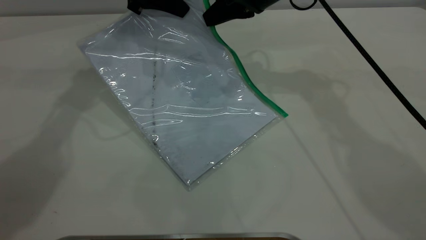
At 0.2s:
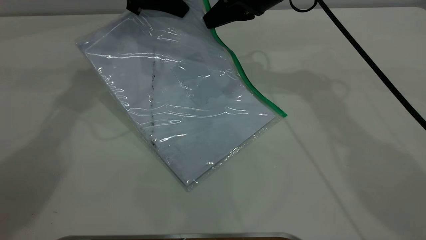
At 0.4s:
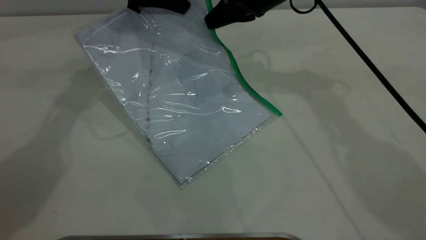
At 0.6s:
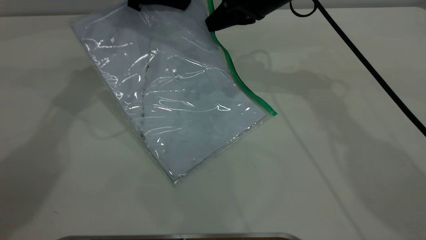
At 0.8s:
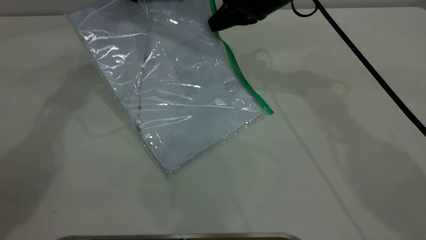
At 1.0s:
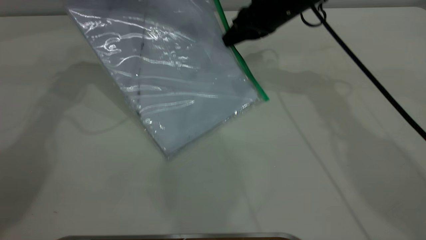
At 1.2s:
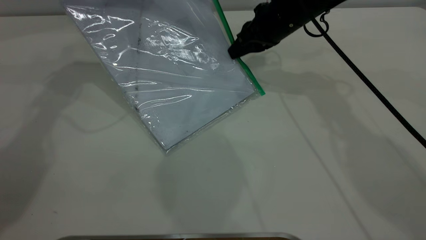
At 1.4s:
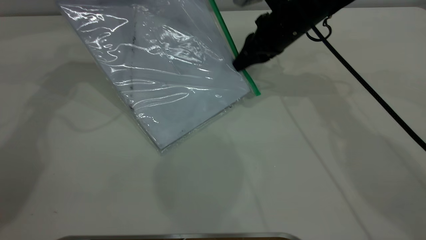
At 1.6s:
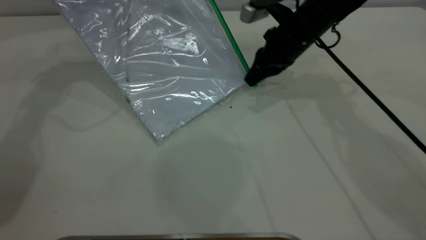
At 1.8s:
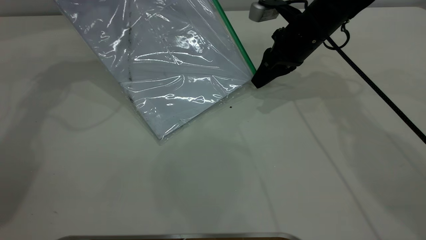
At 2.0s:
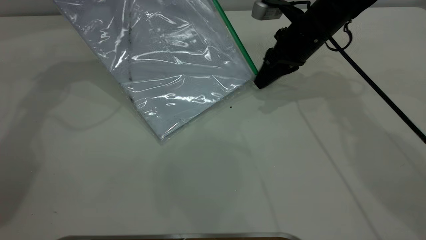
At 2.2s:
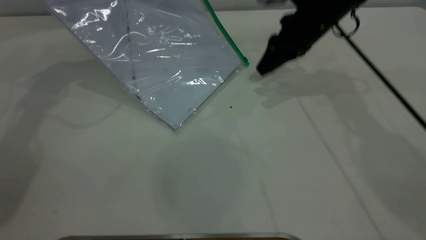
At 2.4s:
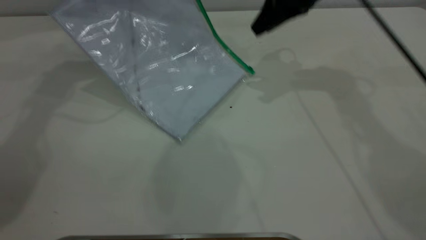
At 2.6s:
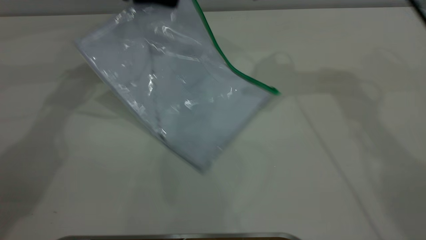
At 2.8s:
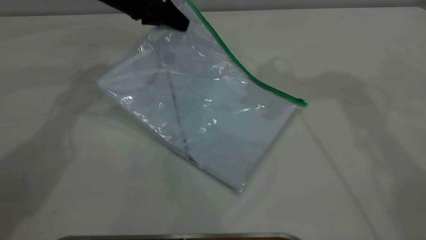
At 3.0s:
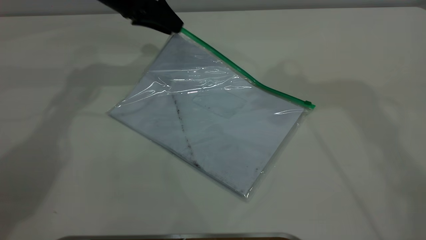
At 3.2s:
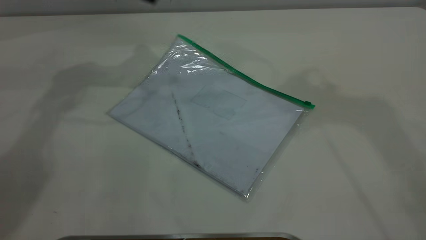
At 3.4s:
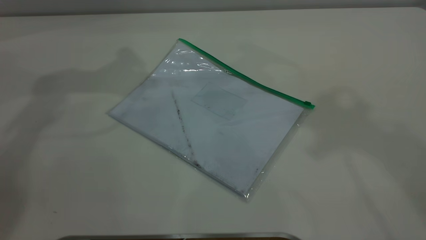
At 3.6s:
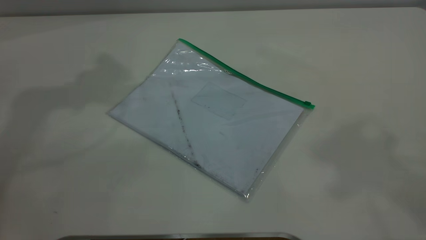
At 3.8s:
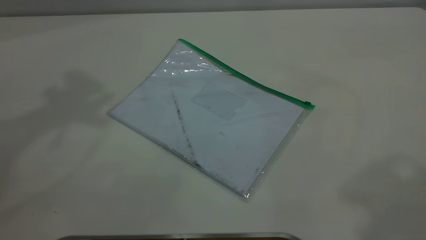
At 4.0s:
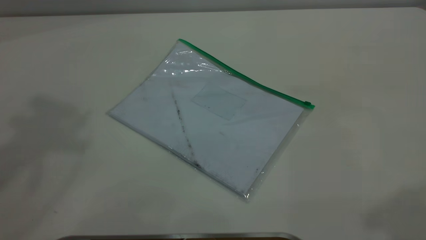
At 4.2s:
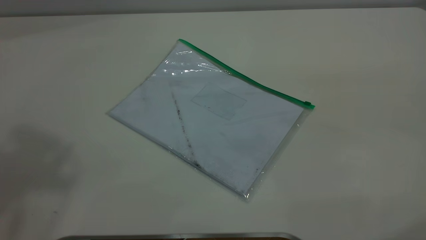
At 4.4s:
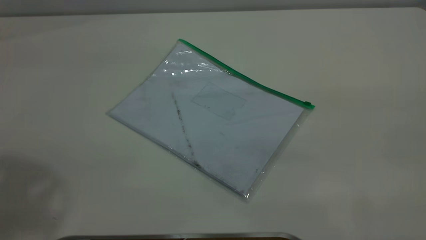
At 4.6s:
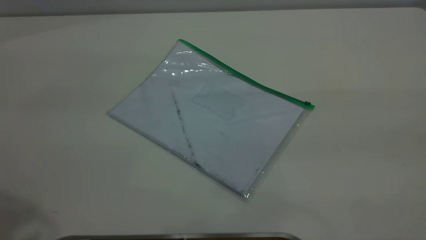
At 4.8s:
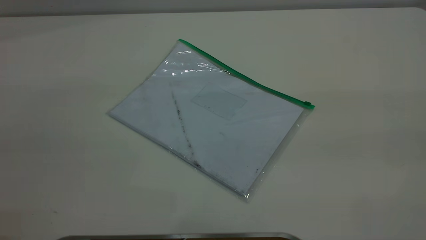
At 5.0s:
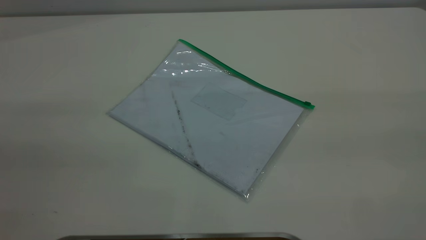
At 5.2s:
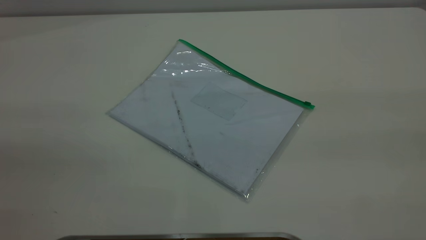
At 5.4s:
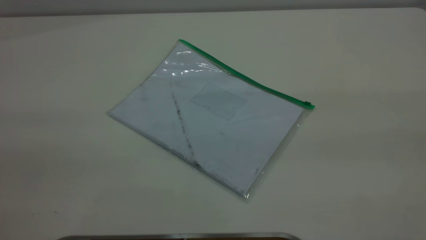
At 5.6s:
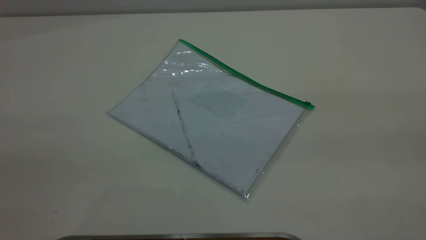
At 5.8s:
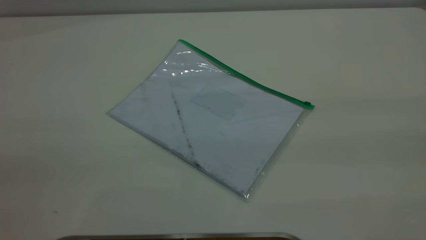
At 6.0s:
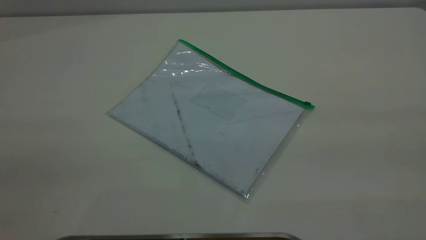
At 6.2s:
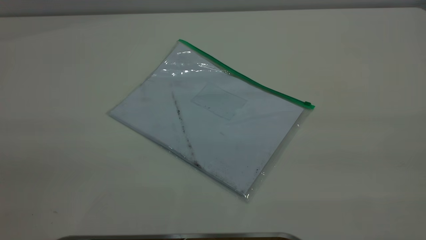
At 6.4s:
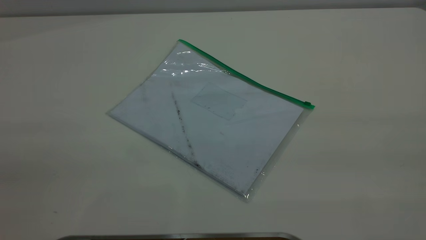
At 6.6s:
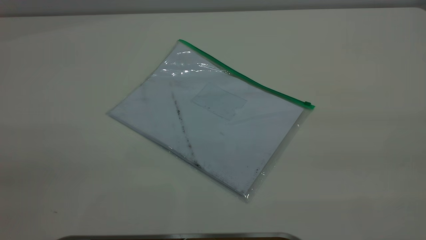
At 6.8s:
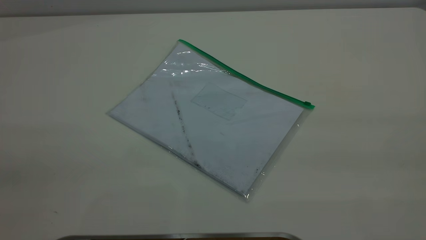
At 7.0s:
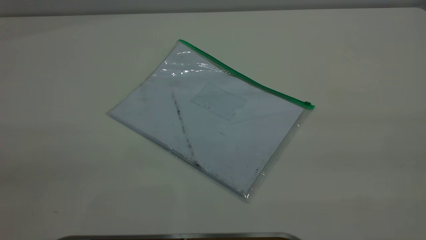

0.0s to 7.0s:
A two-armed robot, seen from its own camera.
Step, 0.0s to 2.0s: Pulling up the zipper on the transparent plastic bag with the right gripper to close it.
Step, 2.2s to 3.0s: Place the transparent plastic bag.
0.0s to 1.4s: The left gripper moves roughly 5 cm; the right gripper goes roughly 5 cm downward.
1.4s to 2.8s: The left gripper is displaced downward by about 10 cm. Meanwhile the right gripper shifts roughly 25 cm upward, and opens.
2.8s to 4.2s: The right gripper shifts some 30 cm backward, while the left gripper moves upward and backward, roughly 50 cm, and opens its fingers.
